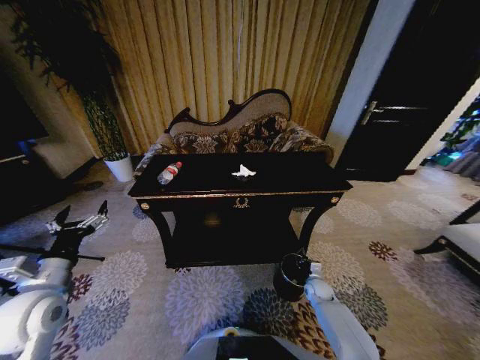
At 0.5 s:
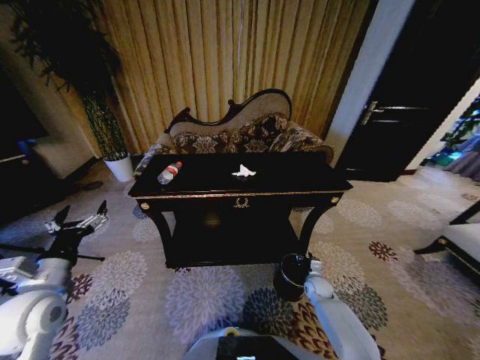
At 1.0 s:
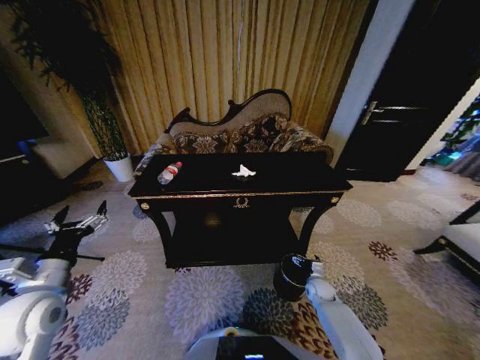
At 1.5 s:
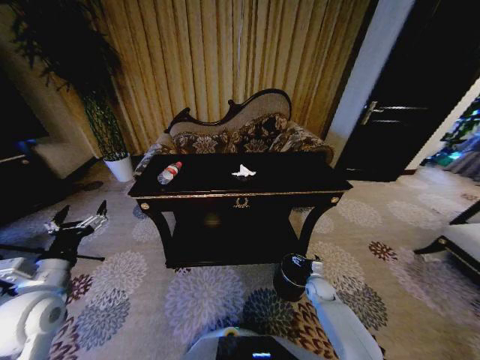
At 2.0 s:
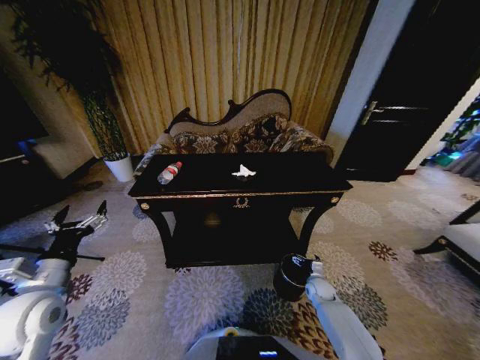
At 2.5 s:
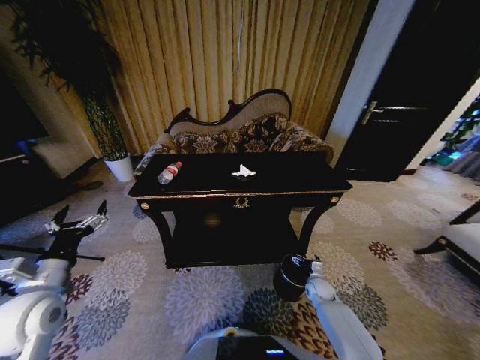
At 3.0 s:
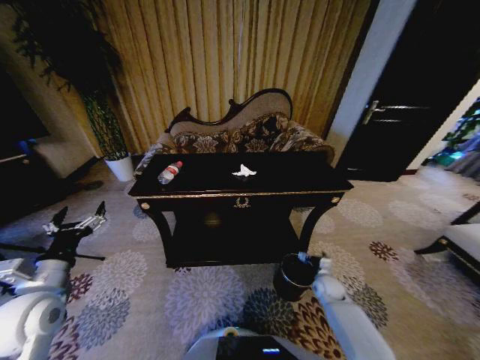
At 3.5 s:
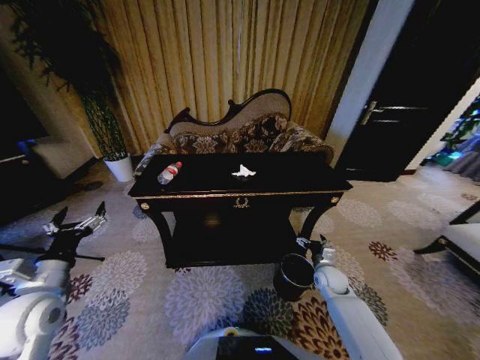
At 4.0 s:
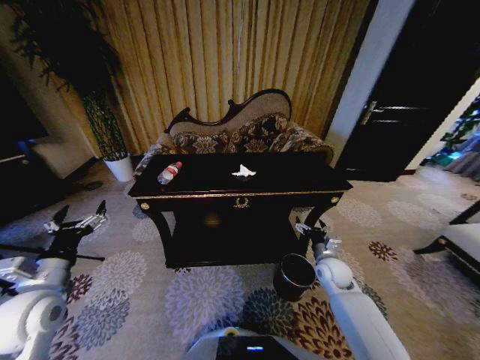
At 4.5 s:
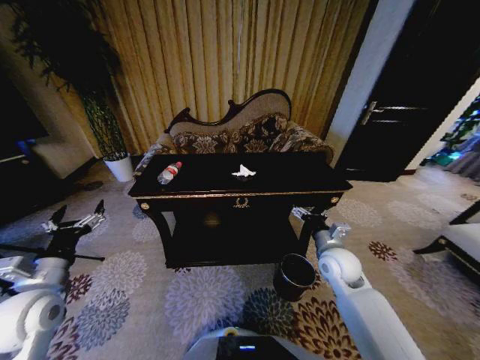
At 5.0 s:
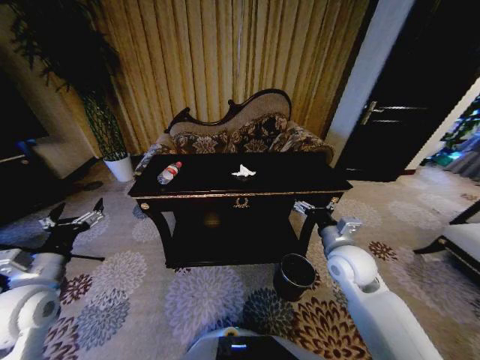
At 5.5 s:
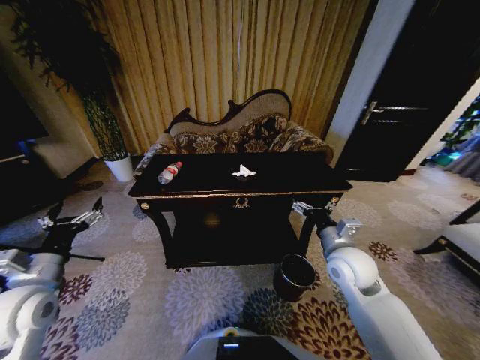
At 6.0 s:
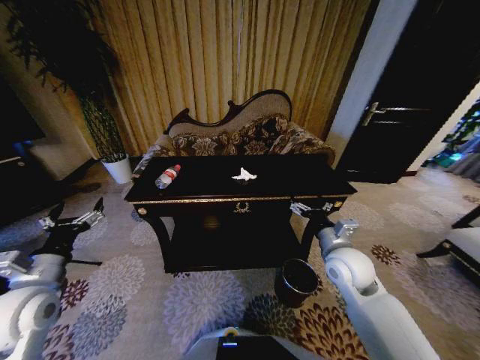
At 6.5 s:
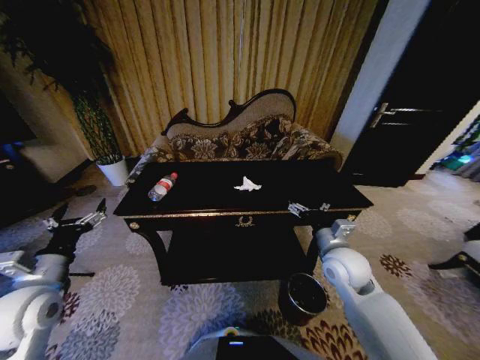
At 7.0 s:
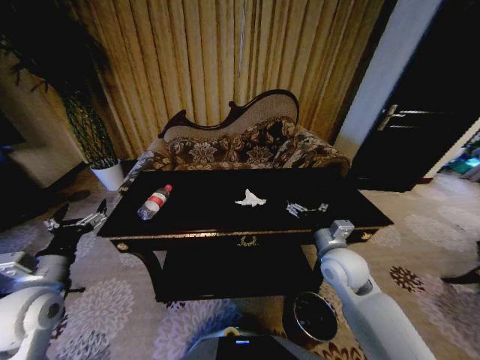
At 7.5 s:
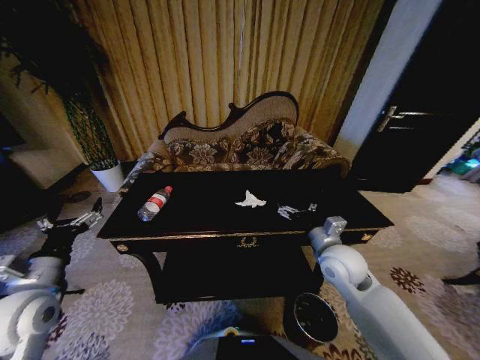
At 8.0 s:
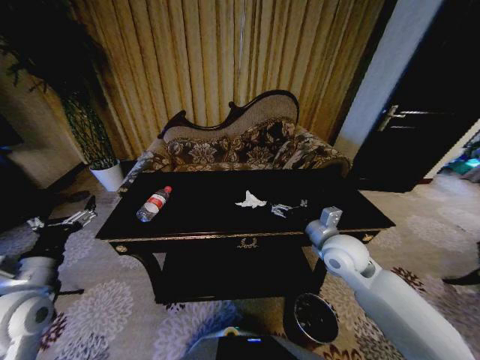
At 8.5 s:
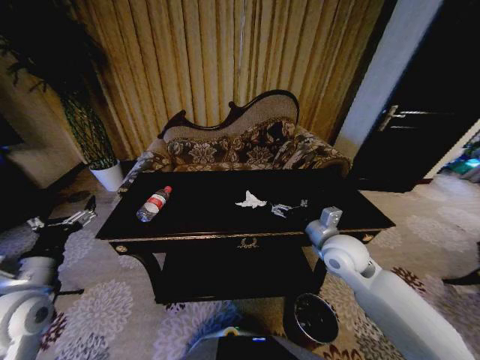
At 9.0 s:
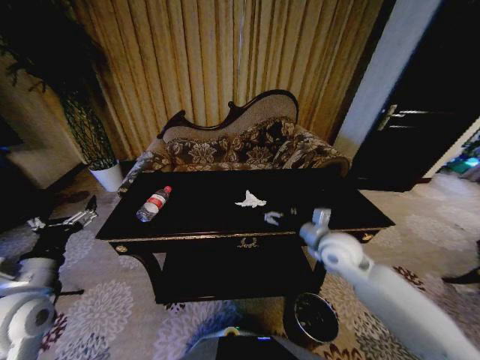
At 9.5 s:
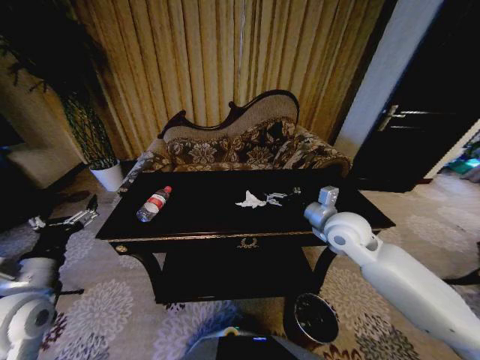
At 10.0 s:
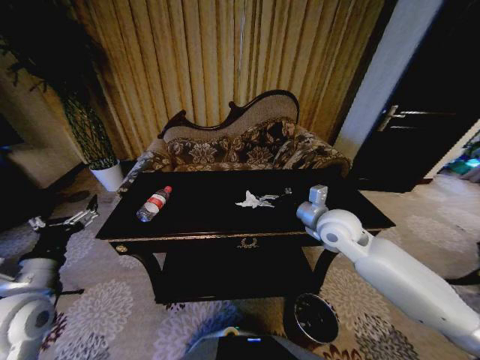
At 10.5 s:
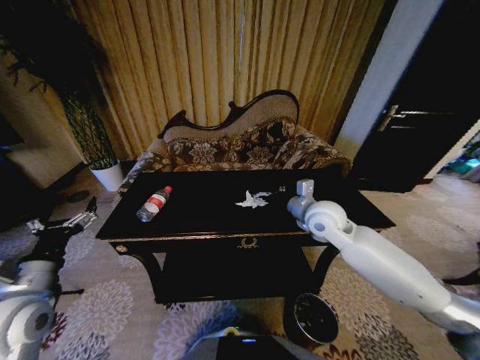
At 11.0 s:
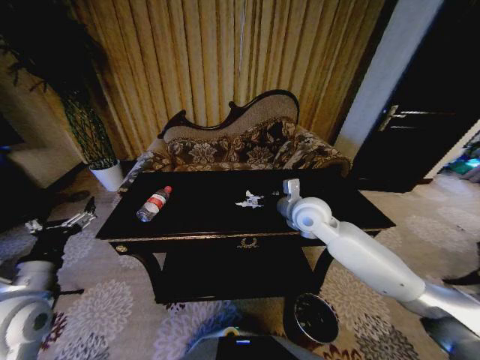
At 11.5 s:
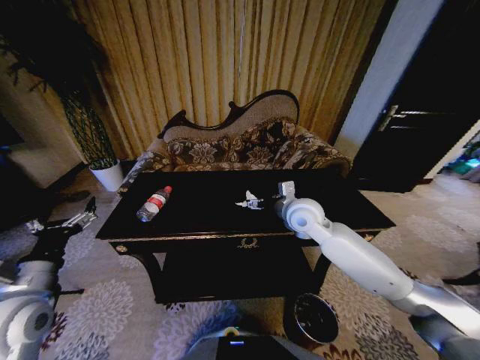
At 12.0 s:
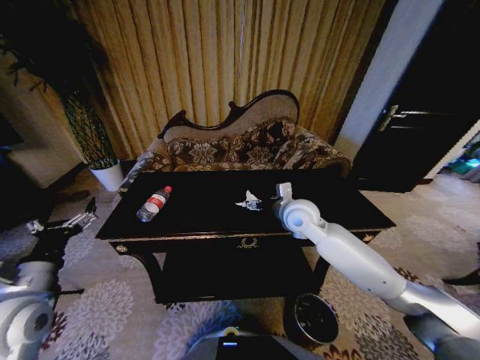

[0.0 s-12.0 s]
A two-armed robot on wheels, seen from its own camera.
Task of the whole recording: Move to the front of the table and place the trash on the table into the trash bin.
2.0 to 4.0 s: The right gripper is displaced upward by about 15 cm.
4.0 to 6.0 s: The right gripper shifts some 15 cm upward.
8.0 to 10.0 s: The right gripper moves roughly 5 cm.
10.0 to 12.0 s: The right gripper is displaced to the left by roughly 10 cm.

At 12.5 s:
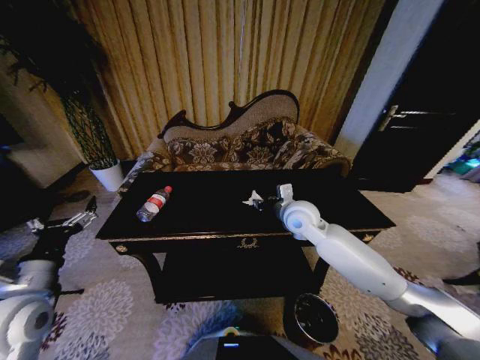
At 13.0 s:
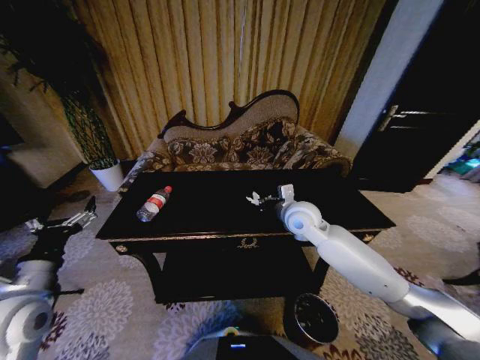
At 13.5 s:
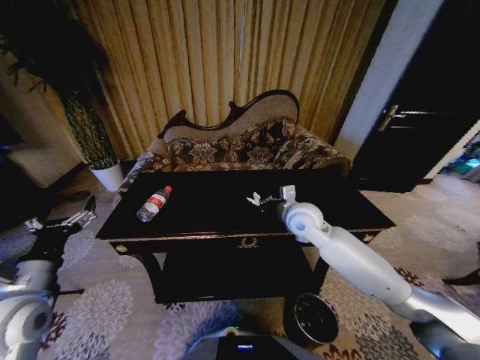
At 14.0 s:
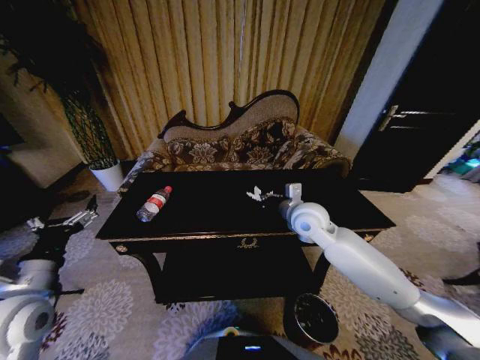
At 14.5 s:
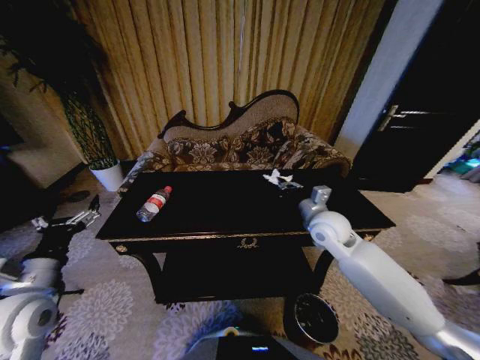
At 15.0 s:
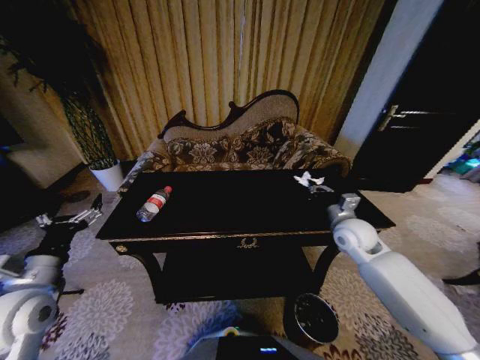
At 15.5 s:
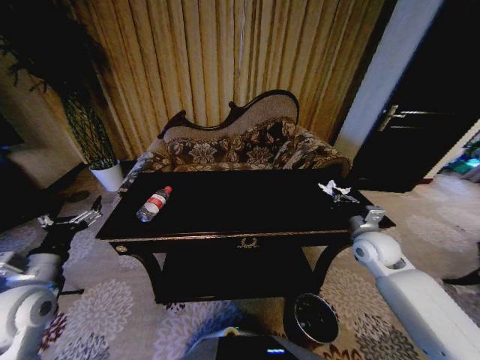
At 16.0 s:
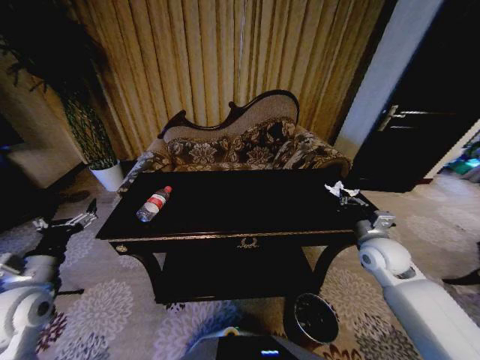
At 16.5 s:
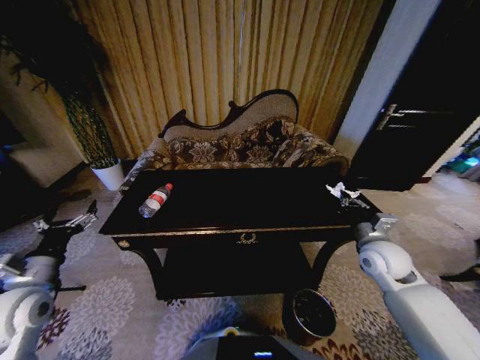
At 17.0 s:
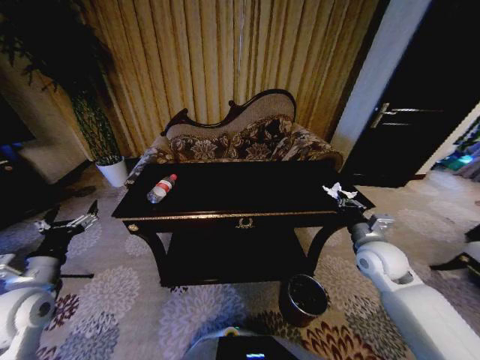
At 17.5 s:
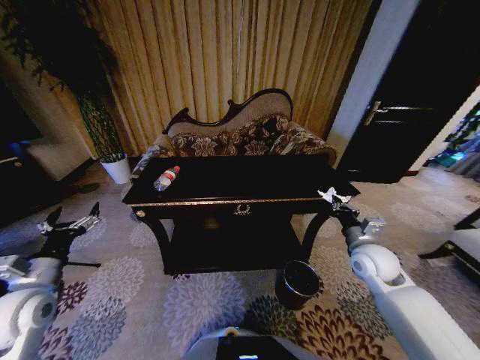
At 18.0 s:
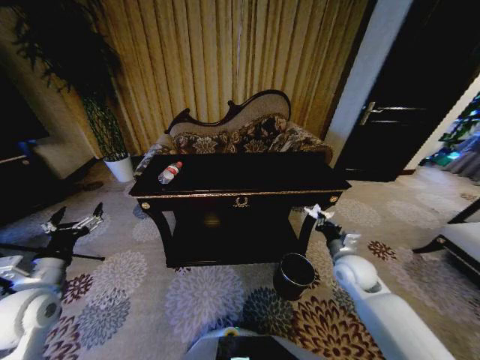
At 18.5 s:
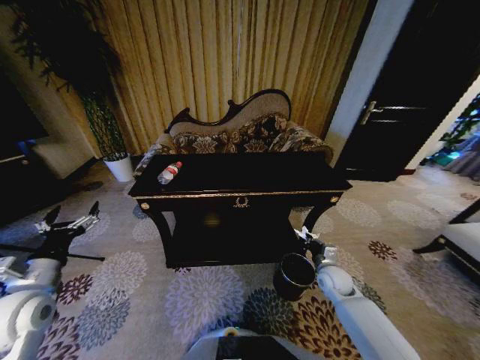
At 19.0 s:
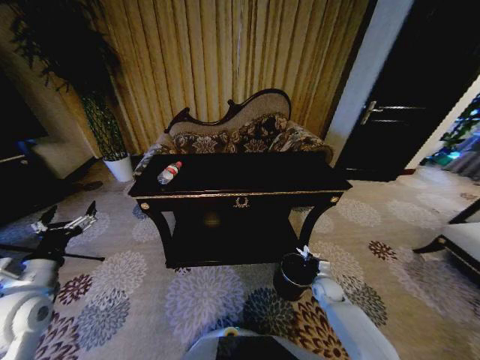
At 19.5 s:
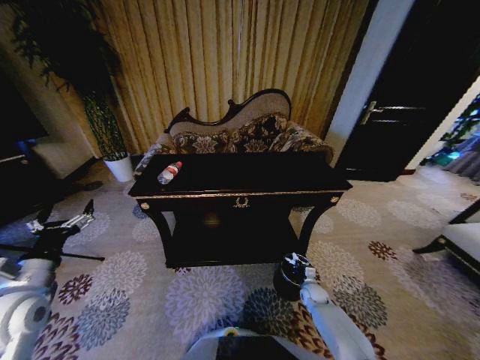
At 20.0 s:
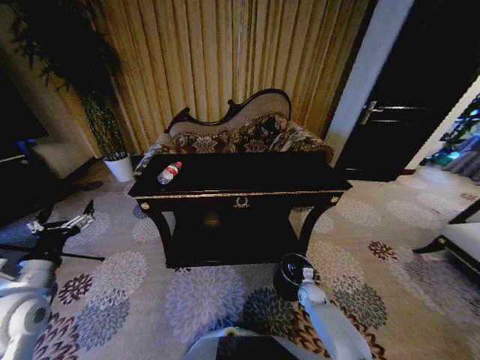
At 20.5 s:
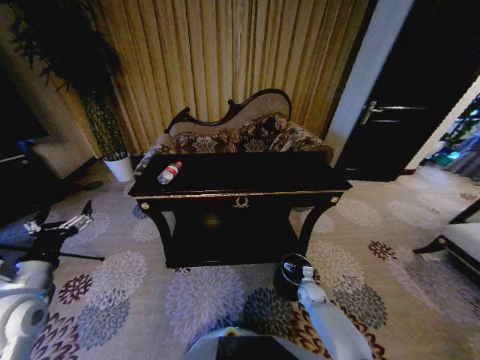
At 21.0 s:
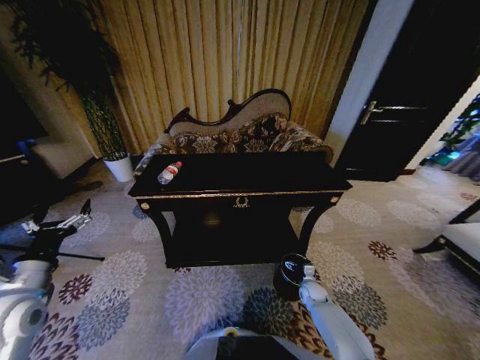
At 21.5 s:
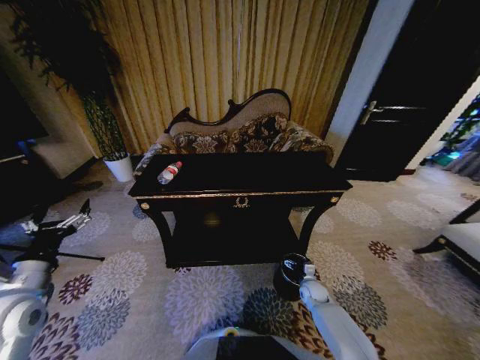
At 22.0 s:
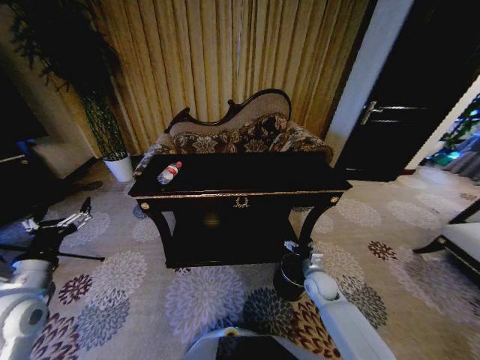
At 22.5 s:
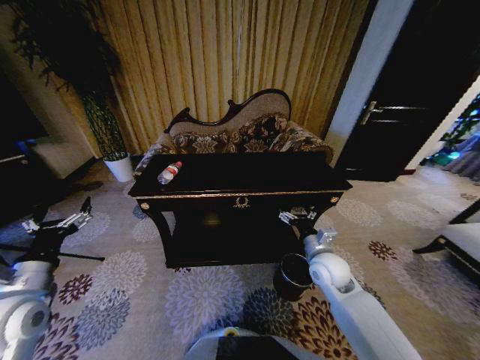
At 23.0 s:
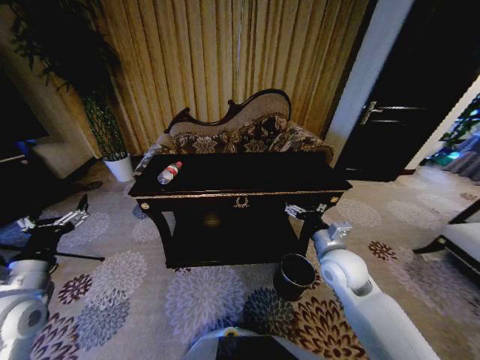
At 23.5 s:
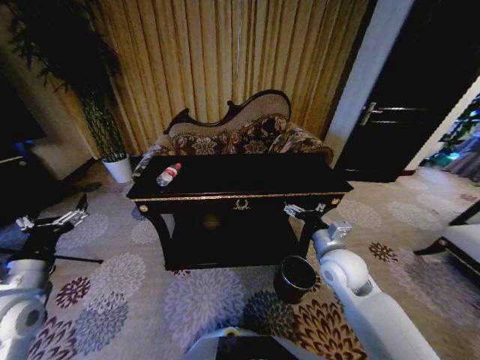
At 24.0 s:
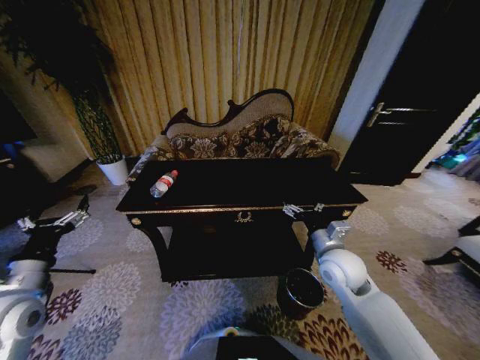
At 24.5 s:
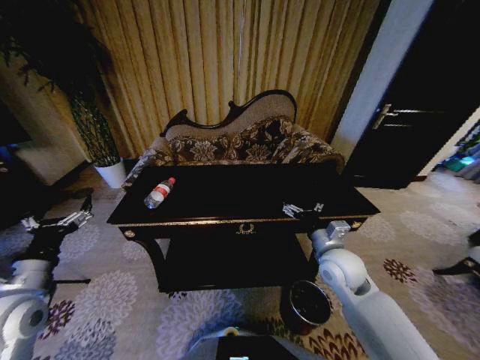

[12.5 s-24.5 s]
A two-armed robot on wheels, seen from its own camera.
Task of the whole recording: Move to the front of the table and place the trash on the table into the trash bin.
12.5 to 14.5 s: The right gripper travels to the right by roughly 5 cm, and closes its fingers.
14.5 to 16.5 s: The right gripper goes some 15 cm to the right and backward.
16.5 to 18.5 s: The right gripper shifts roughly 20 cm downward.
18.5 to 20.5 s: The right gripper moves downward, roughly 15 cm, and opens its fingers.
20.5 to 22.5 s: The right gripper heads upward, covering approximately 25 cm.
22.5 to 24.5 s: The right gripper is displaced upward by approximately 5 cm.

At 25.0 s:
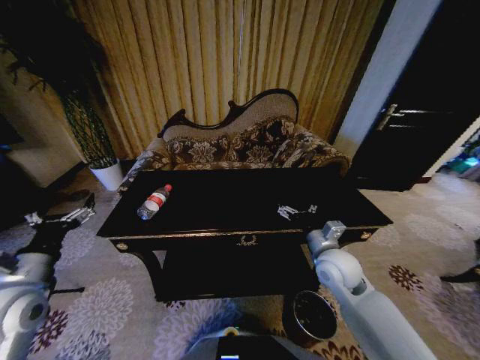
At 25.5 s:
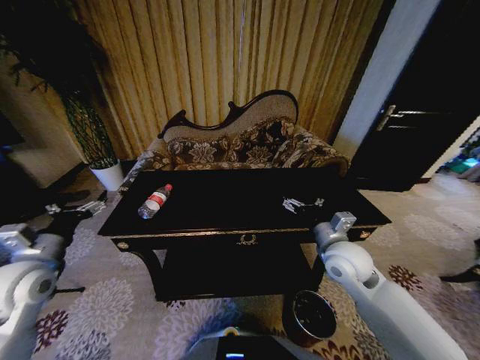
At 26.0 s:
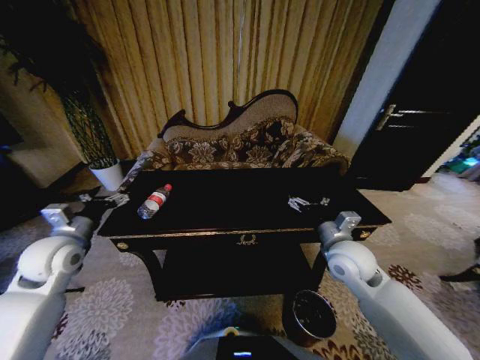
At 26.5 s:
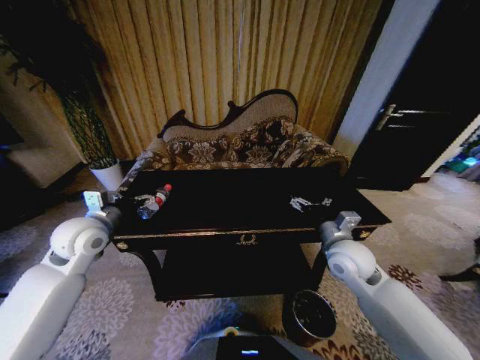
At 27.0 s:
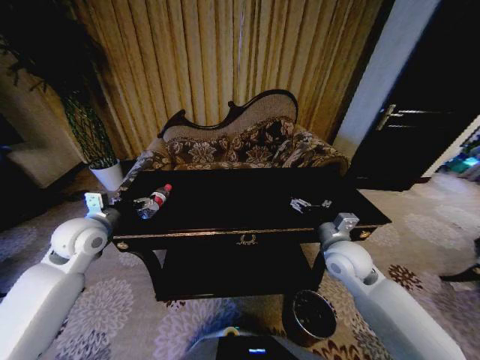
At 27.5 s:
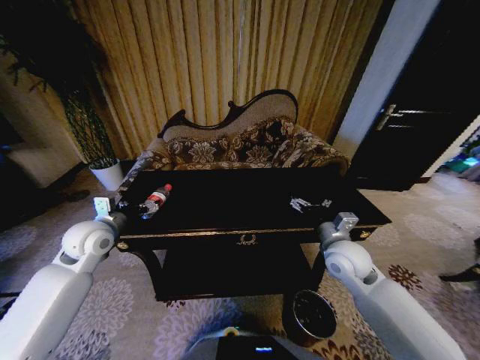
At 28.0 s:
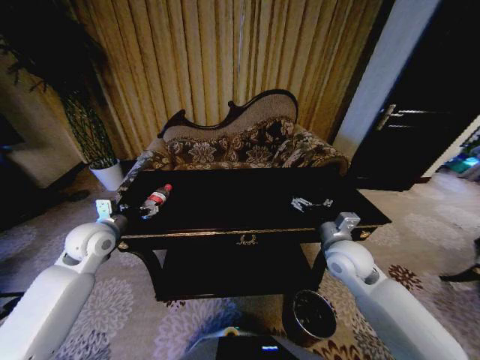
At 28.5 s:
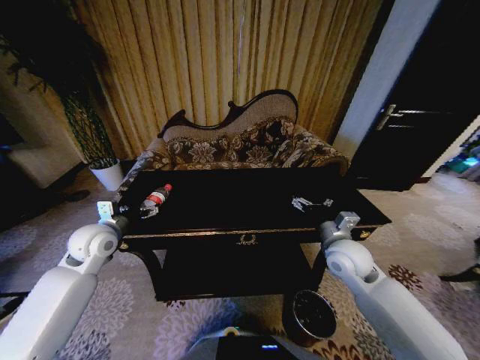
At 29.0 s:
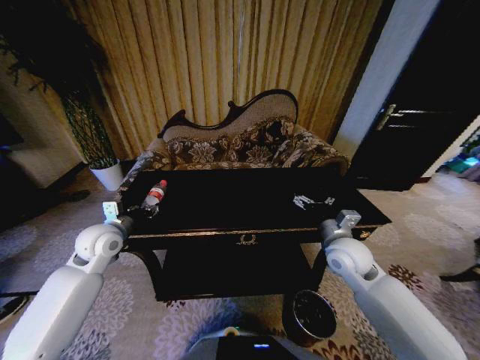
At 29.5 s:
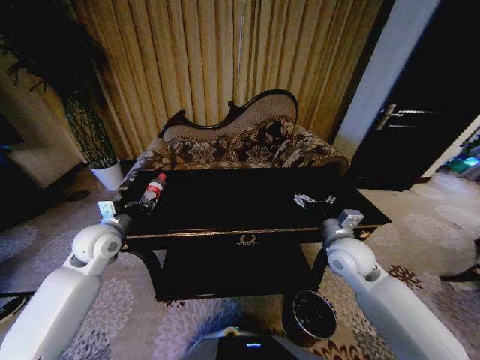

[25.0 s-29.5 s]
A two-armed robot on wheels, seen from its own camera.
Task of the whole recording: Move to the front of the table and place the trash on the table into the trash bin.
25.0 to 27.0 s: The left gripper heads forward, covering about 15 cm.
27.0 to 29.5 s: The left gripper closes up.
